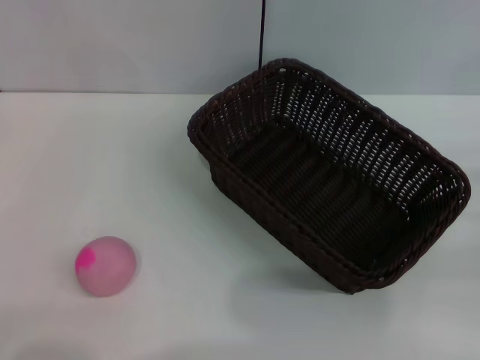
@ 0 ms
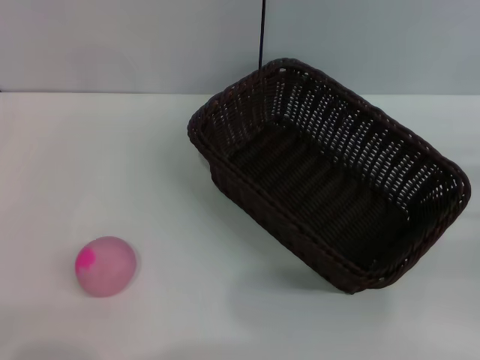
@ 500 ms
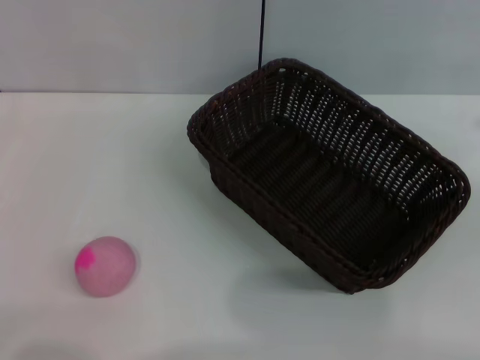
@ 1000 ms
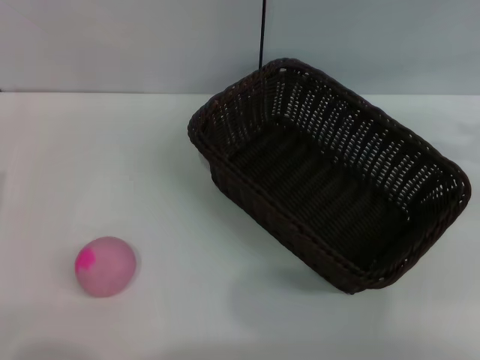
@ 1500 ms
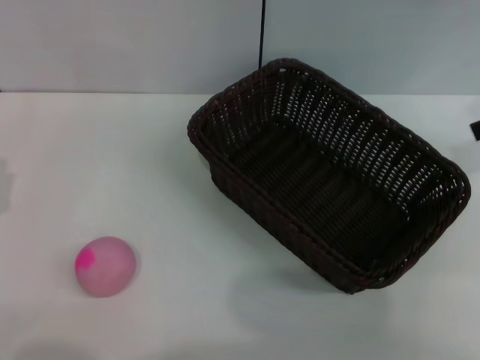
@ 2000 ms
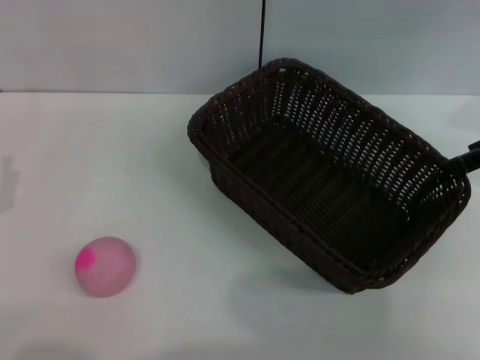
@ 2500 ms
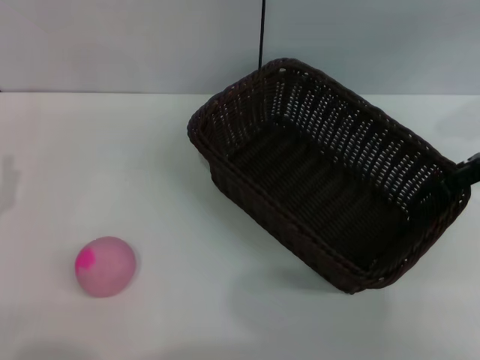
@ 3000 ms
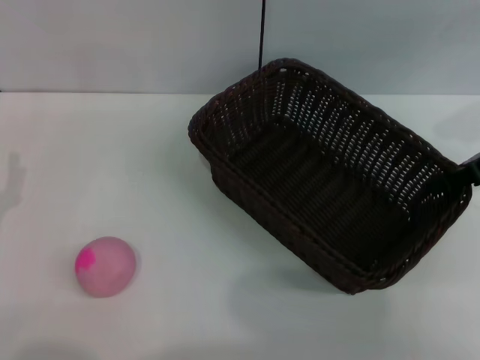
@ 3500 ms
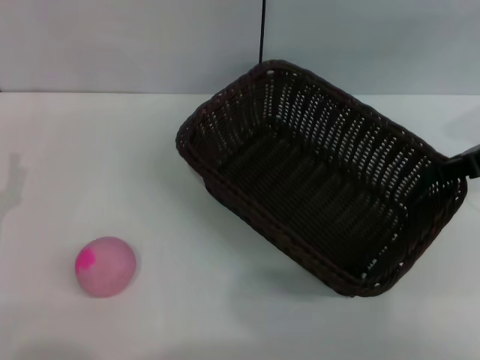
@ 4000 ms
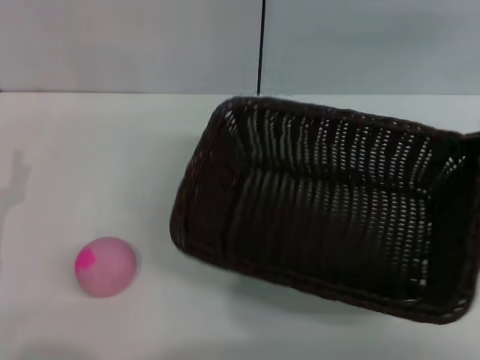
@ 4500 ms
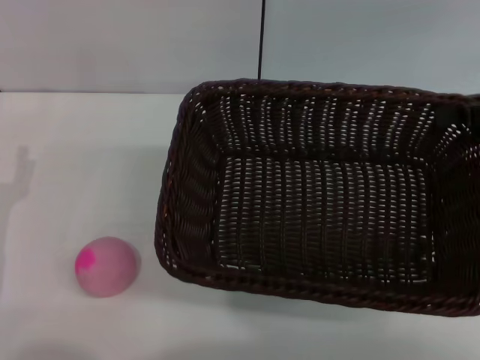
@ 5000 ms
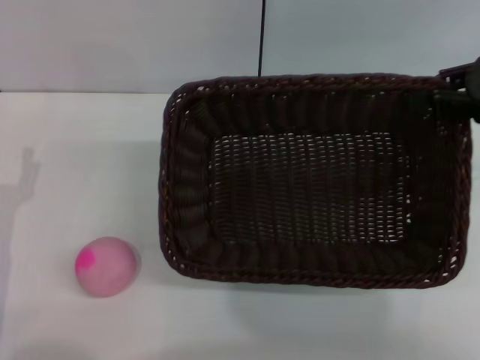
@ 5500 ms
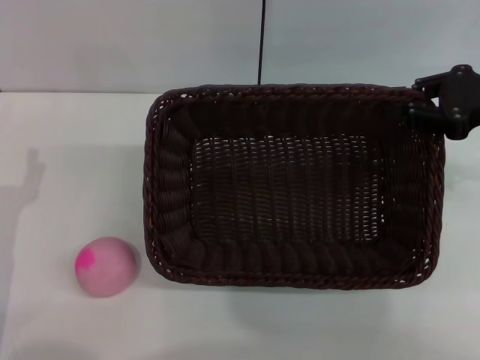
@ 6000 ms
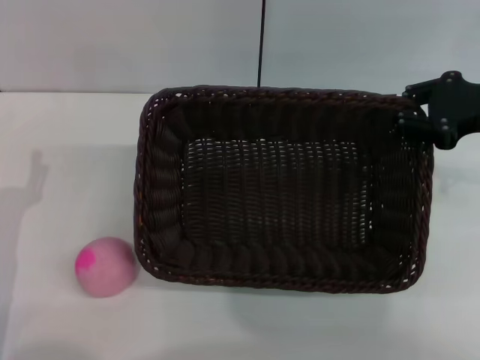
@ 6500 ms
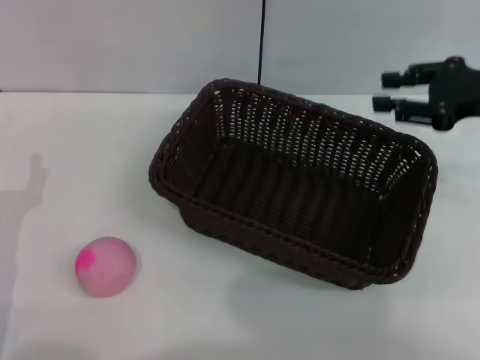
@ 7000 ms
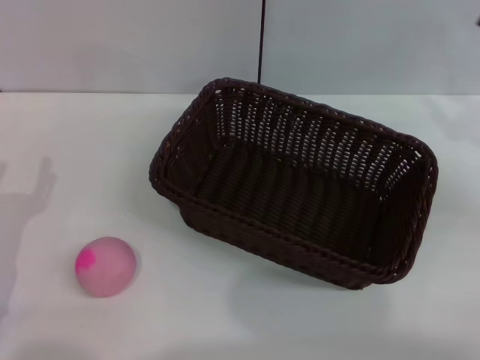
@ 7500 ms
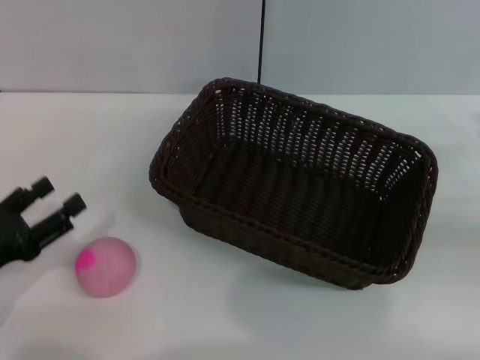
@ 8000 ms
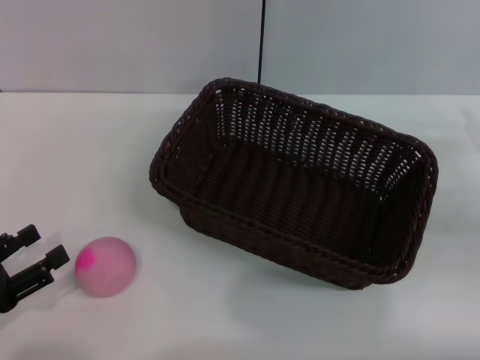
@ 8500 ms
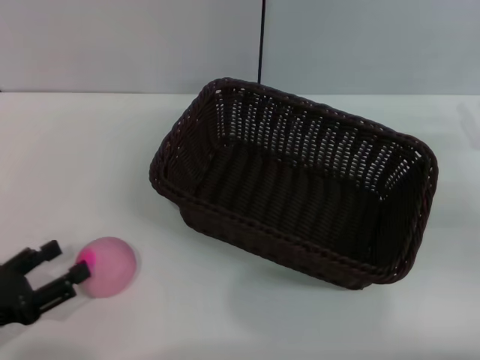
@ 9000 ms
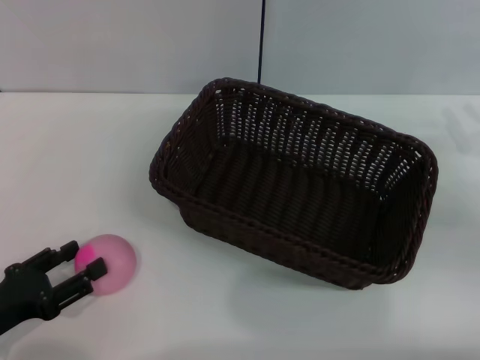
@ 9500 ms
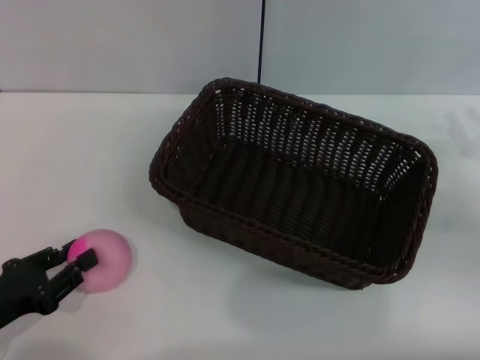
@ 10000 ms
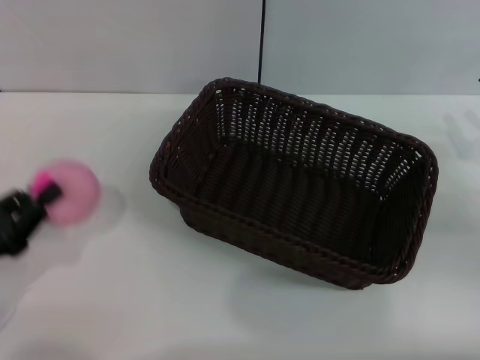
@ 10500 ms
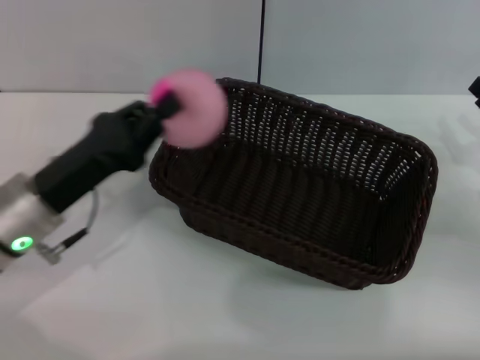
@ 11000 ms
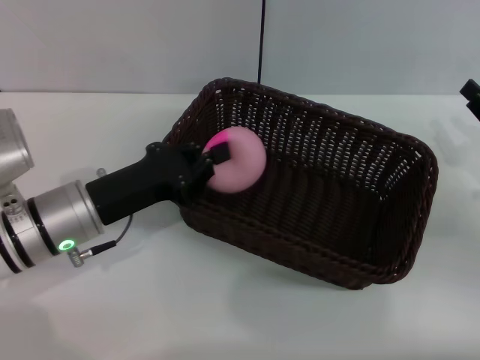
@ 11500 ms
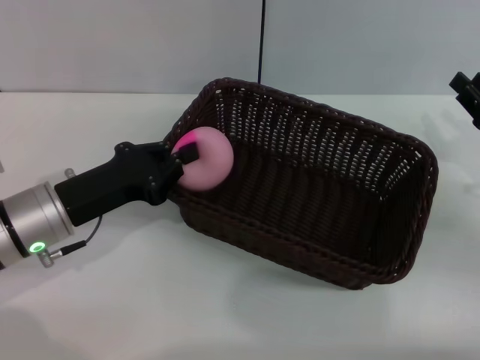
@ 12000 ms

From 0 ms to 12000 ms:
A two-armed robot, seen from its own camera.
Step, from 0 ms to 4500 ms: Pick up the dark basket with the right gripper.
Step, from 5000 ms to 7000 ms: Place the dark basket in the center of view with the right gripper.
Step, from 7500 ms to 10500 ms: Pick up the peach with the left gripper.
From 0 ms to 2000 ms: The right gripper moves upward and forward, some 25 cm, and opens.
From 2000 ms to 4000 ms: The right gripper travels downward by roughly 10 cm, and closes its fingers.
From 6000 ms to 8000 ms: The right gripper goes about 15 cm backward, downward and to the right.
From 8000 ms to 10000 ms: The left gripper closes.
From 10000 ms to 12000 ms: The left gripper goes some 15 cm forward and to the right, and closes.

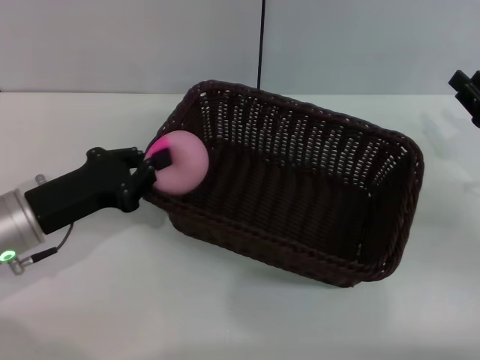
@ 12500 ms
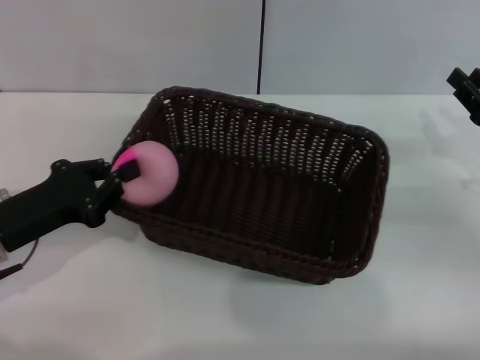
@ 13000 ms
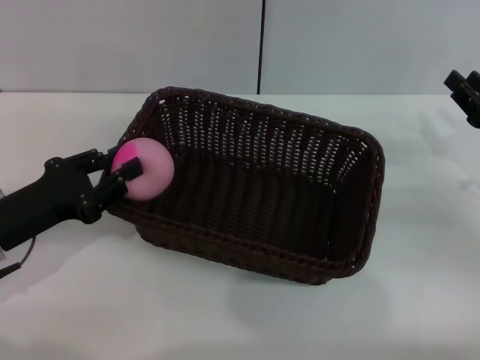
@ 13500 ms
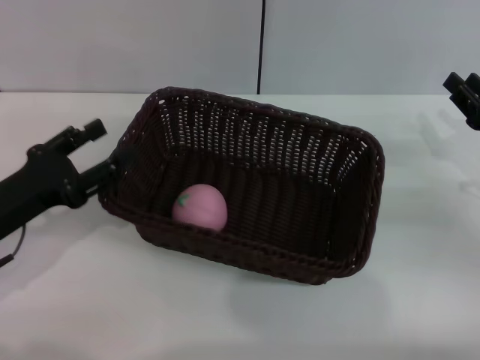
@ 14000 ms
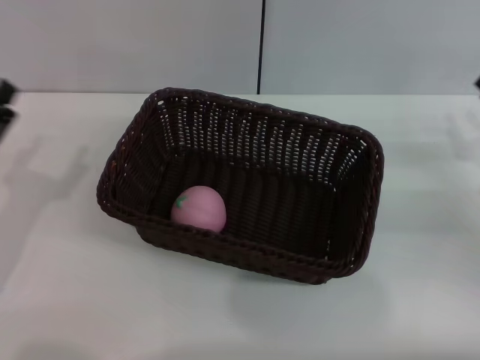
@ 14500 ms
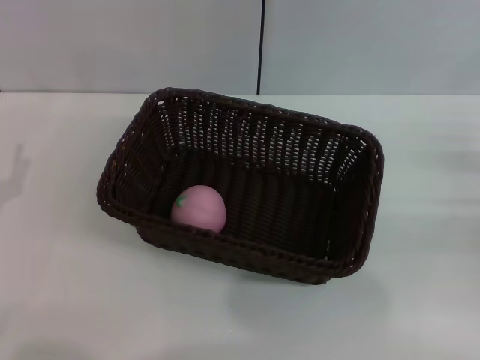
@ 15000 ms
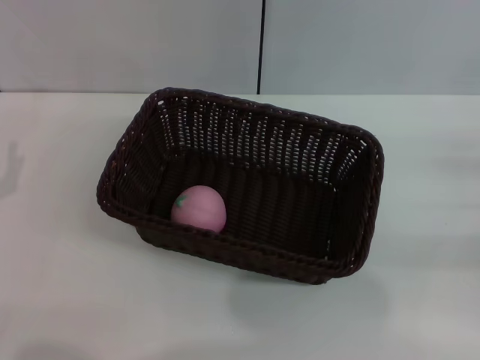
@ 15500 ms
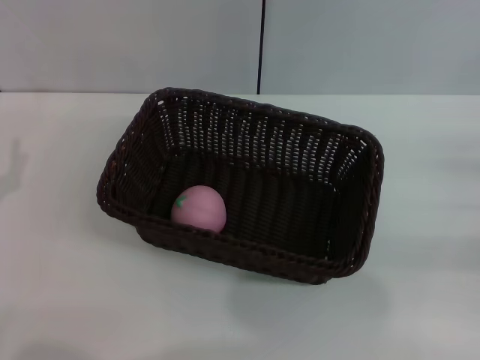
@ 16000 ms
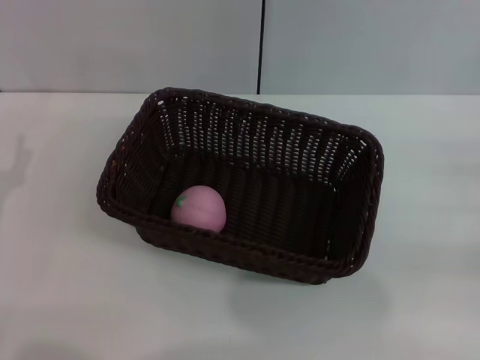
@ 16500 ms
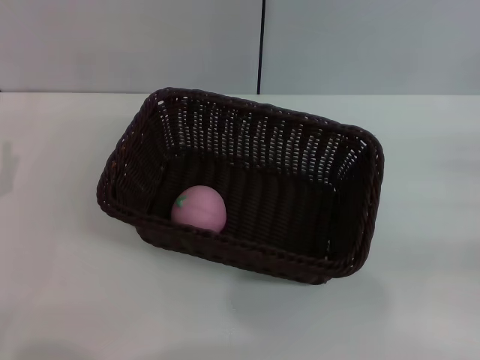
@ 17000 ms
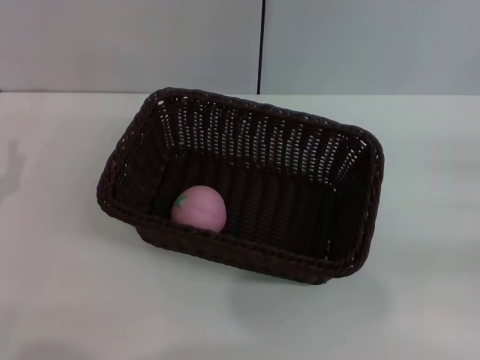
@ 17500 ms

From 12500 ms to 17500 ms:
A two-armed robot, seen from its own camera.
From 12500 ms to 15000 ms: The right gripper travels to the right by roughly 5 cm; the left gripper shifts some 10 cm backward and to the left, and opens up.

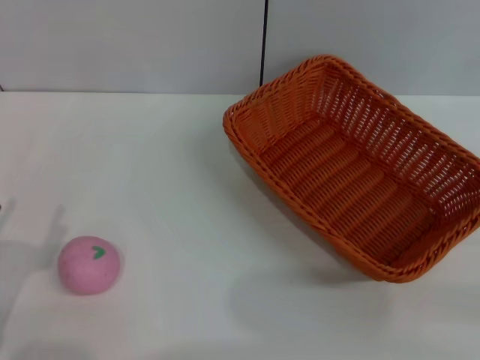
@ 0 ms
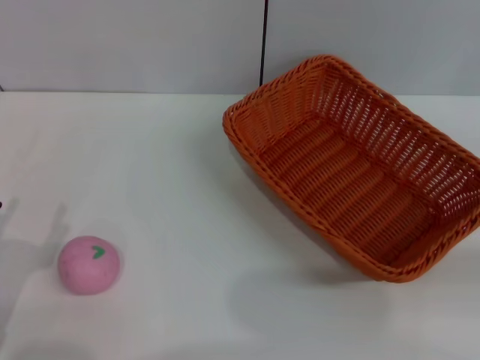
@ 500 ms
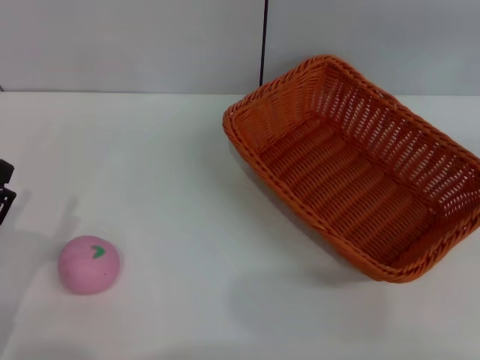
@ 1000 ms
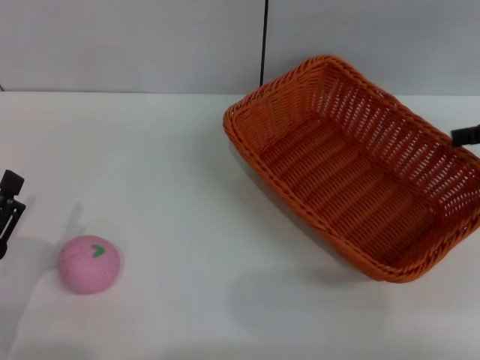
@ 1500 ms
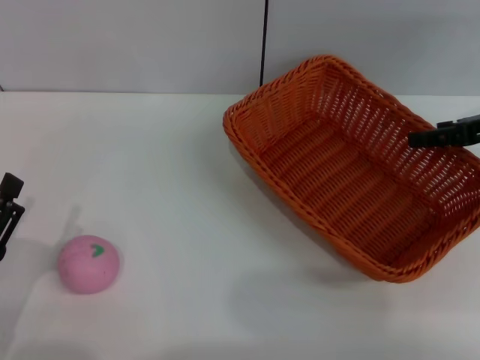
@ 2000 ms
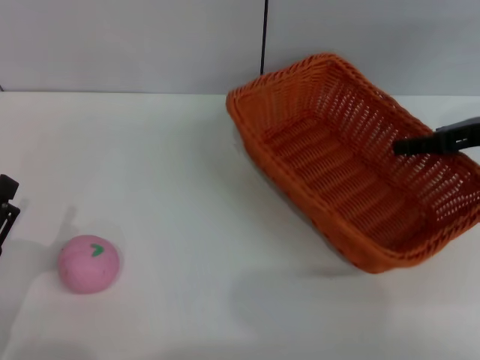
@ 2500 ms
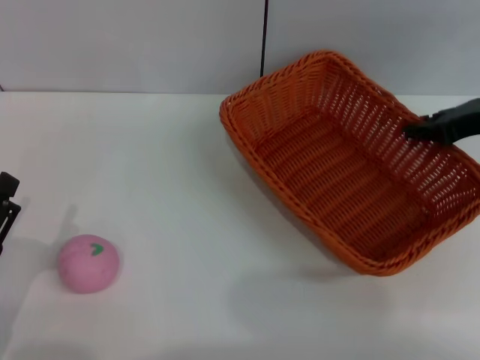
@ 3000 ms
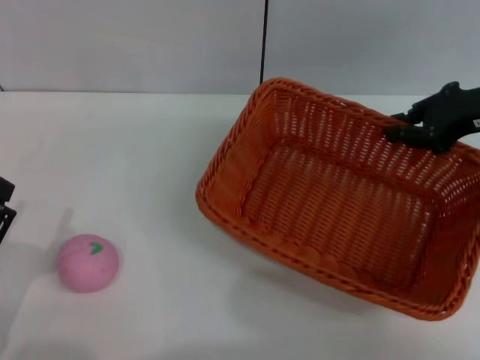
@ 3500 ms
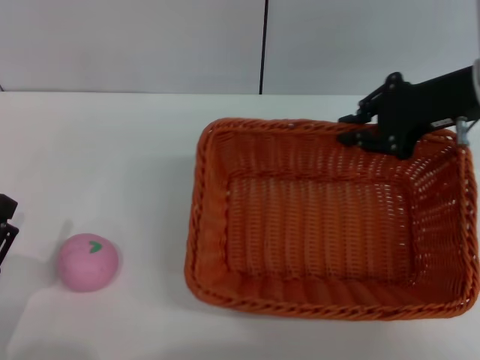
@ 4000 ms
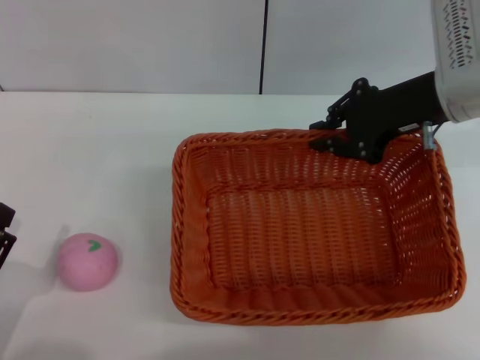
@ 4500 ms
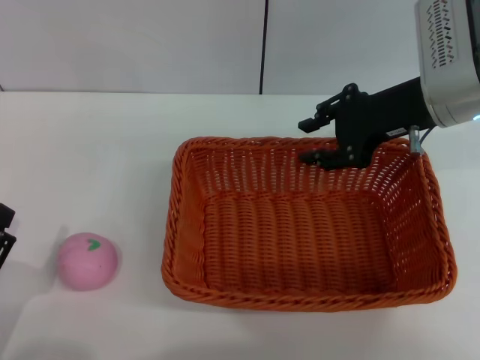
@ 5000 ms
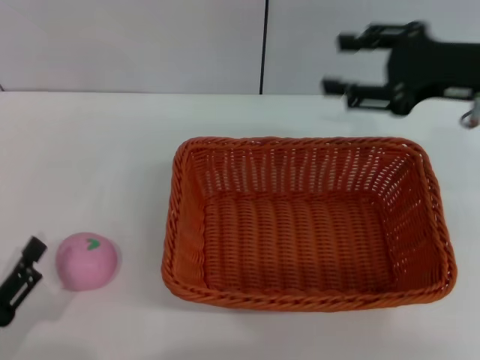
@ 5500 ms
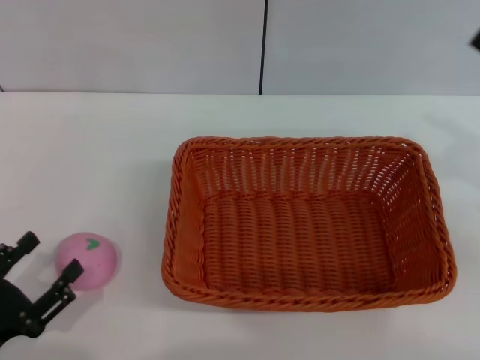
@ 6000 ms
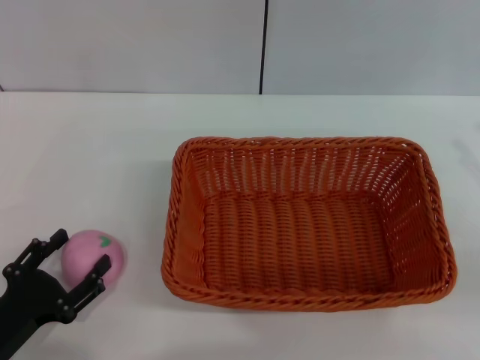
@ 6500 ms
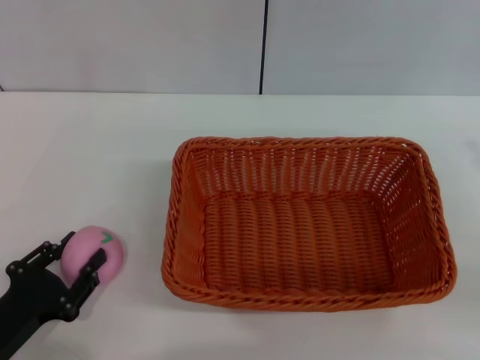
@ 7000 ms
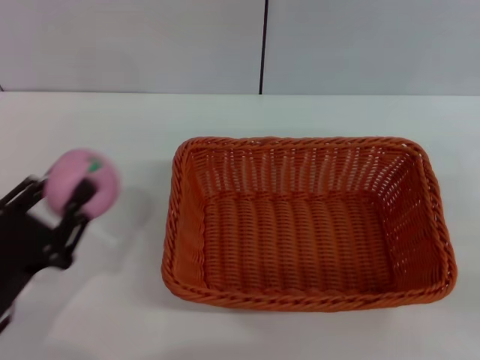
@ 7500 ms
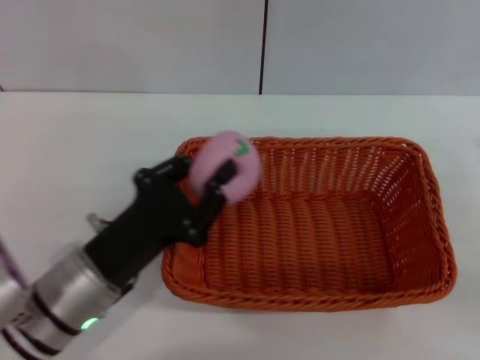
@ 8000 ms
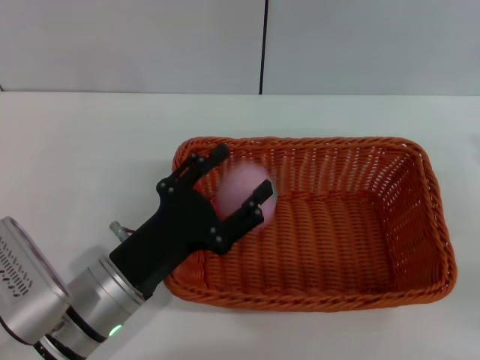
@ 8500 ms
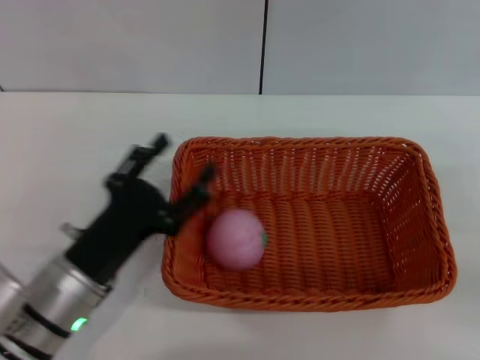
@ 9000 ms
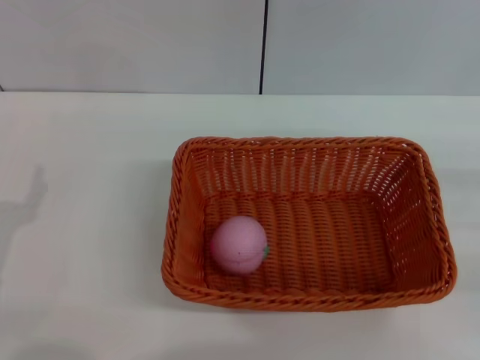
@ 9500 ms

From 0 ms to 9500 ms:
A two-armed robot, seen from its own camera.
Step, from 0 ms to 3500 ms: Pick up the light basket with the right gripper.
Step, from 4000 ms to 5000 ms: Place the light basket in the center of view with the right gripper.
Step, from 5500 ms to 7500 ms: Pick up the peach with the left gripper.
Step, from 8000 ms to 8500 ms: Place the peach into the basket with the left gripper.
From 0 ms to 2000 ms: The right gripper is displaced forward, to the left and upward by about 20 cm.
From 2000 ms to 4000 ms: The right gripper is displaced to the left by roughly 10 cm, and closes its fingers.
From 4000 ms to 5500 ms: The right gripper opens.
From 5500 ms to 7500 ms: The right gripper shifts about 20 cm to the right, backward and downward, while the left gripper is displaced forward by some 5 cm, and closes up.
From 7500 ms to 9500 ms: The left gripper moves some 10 cm to the right and comes back, and opens its fingers.
